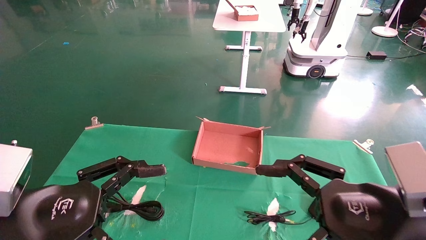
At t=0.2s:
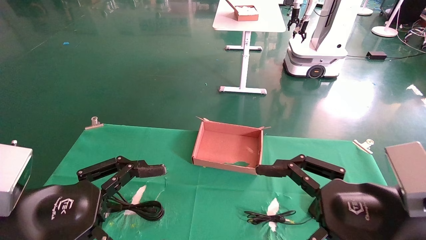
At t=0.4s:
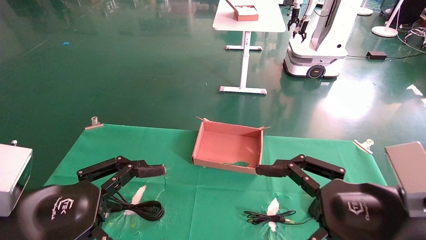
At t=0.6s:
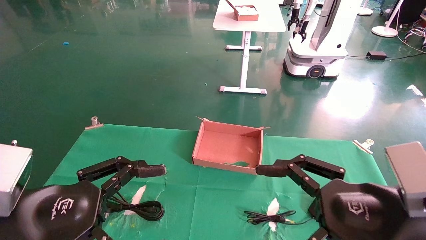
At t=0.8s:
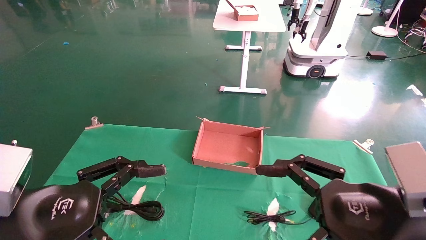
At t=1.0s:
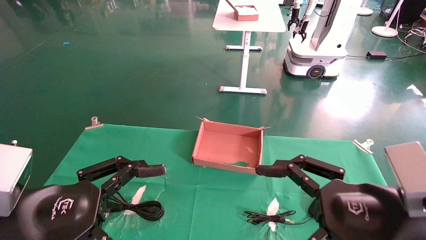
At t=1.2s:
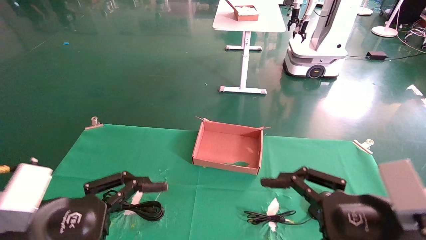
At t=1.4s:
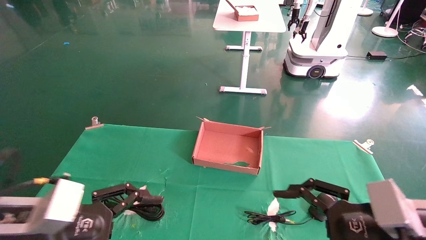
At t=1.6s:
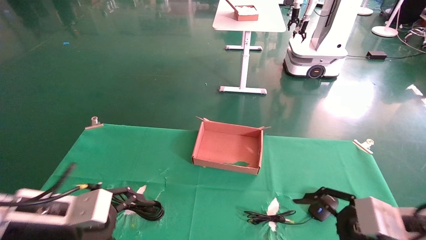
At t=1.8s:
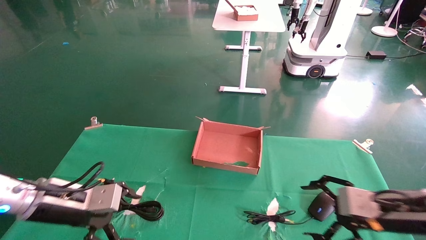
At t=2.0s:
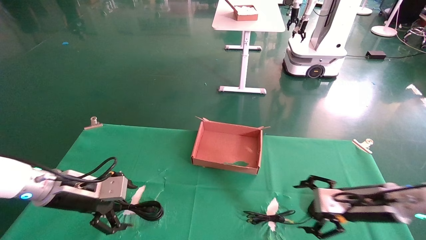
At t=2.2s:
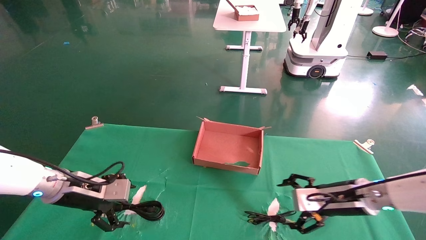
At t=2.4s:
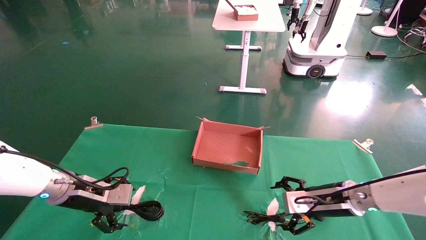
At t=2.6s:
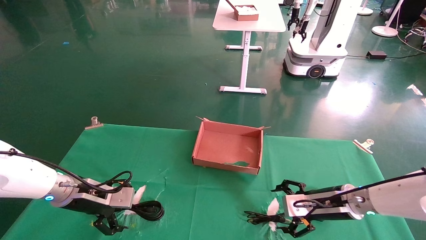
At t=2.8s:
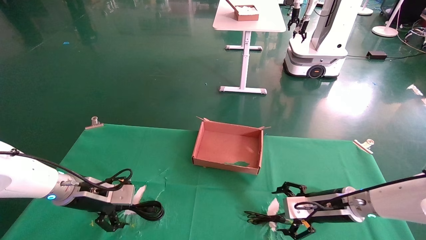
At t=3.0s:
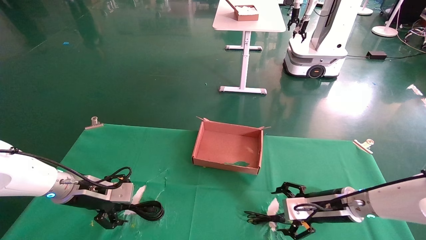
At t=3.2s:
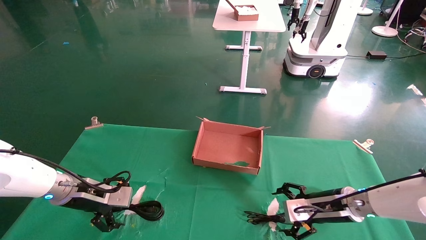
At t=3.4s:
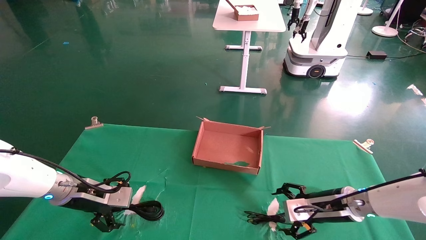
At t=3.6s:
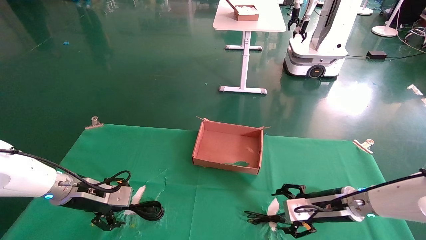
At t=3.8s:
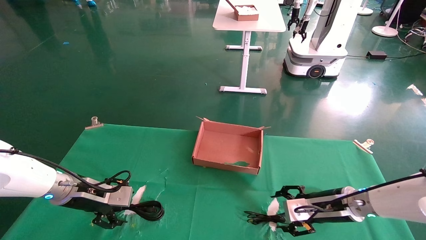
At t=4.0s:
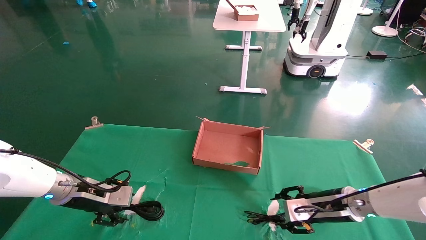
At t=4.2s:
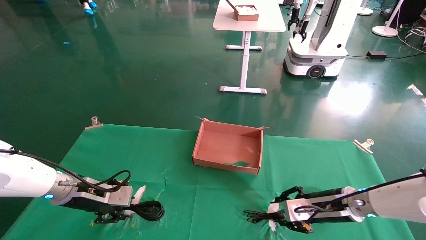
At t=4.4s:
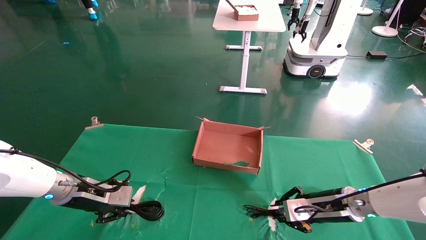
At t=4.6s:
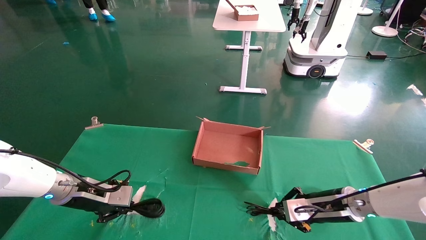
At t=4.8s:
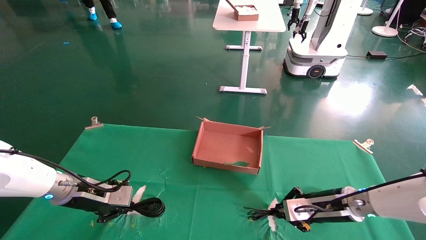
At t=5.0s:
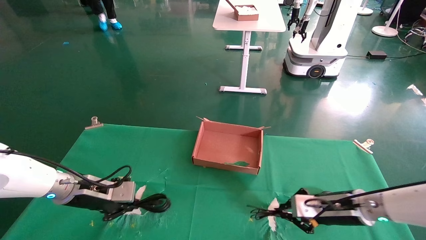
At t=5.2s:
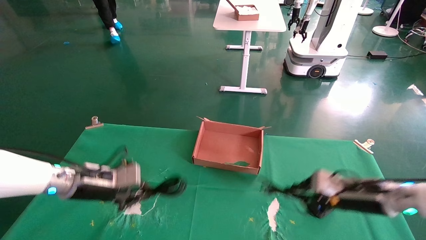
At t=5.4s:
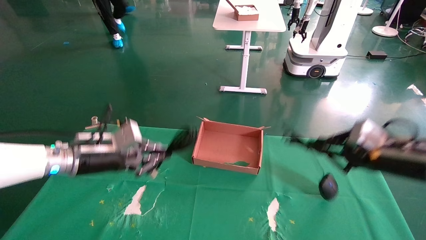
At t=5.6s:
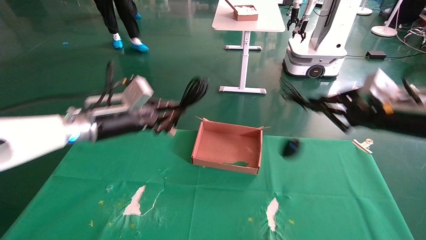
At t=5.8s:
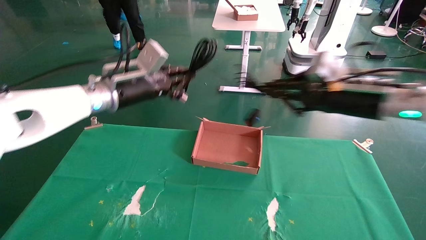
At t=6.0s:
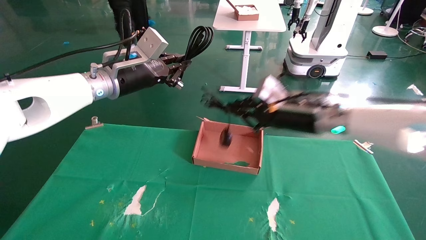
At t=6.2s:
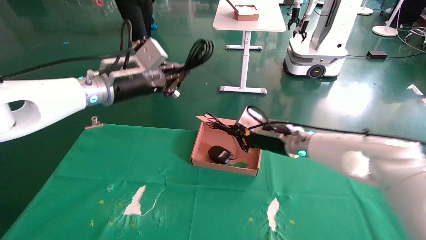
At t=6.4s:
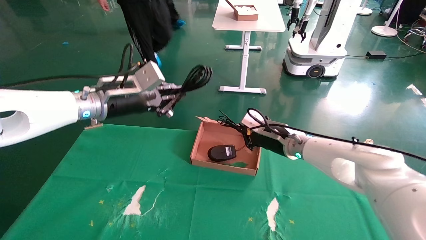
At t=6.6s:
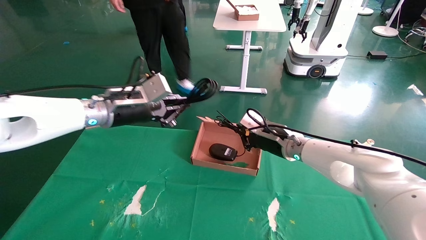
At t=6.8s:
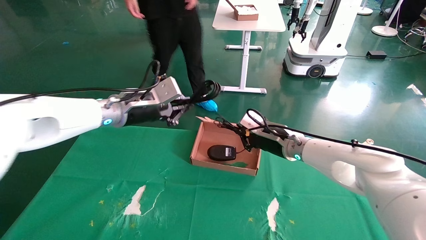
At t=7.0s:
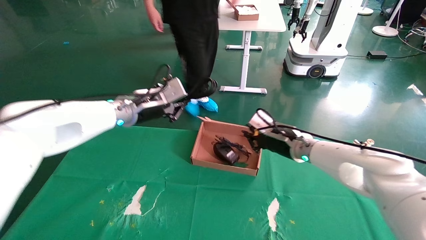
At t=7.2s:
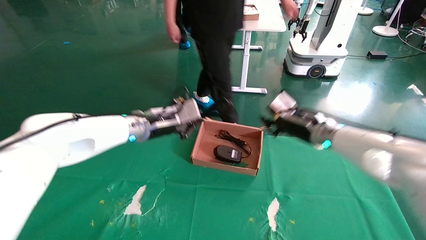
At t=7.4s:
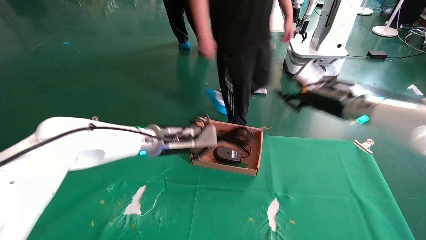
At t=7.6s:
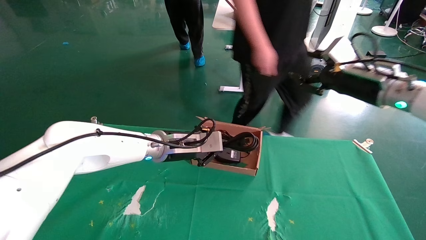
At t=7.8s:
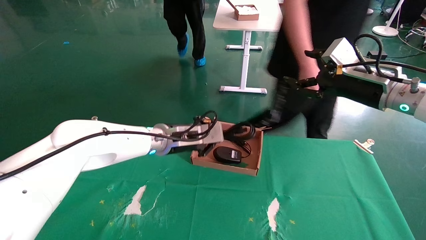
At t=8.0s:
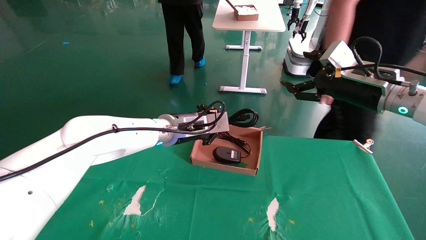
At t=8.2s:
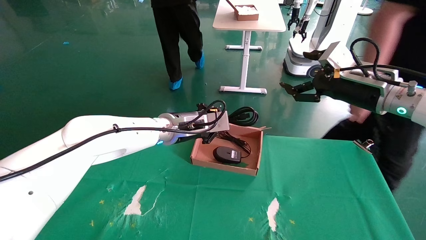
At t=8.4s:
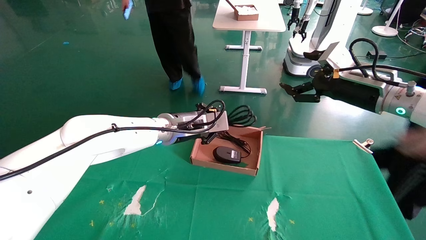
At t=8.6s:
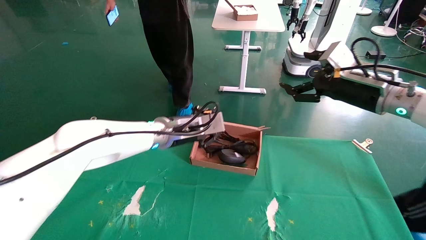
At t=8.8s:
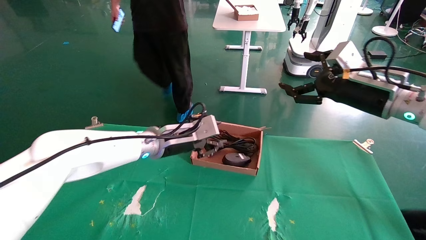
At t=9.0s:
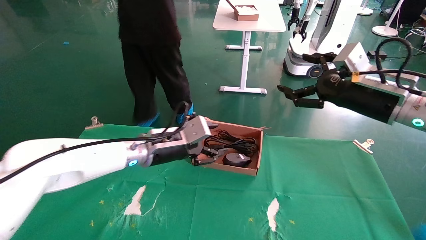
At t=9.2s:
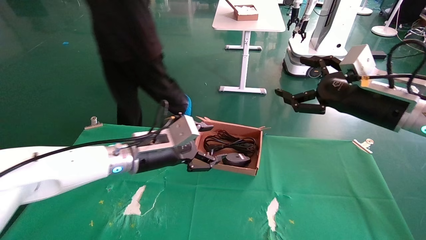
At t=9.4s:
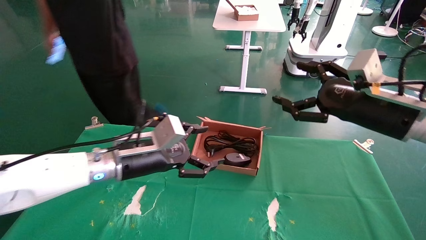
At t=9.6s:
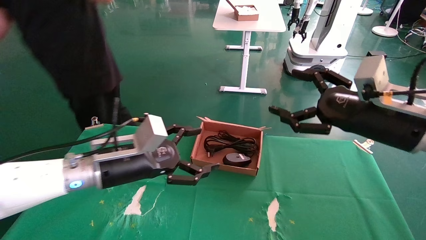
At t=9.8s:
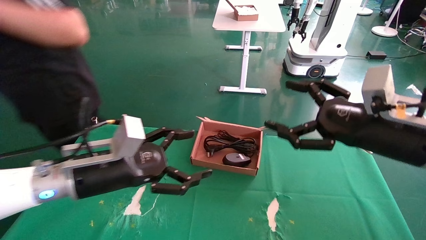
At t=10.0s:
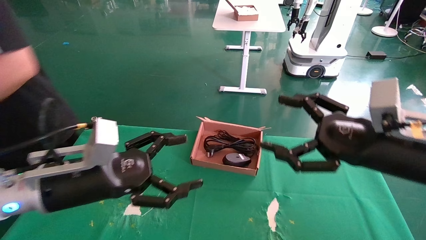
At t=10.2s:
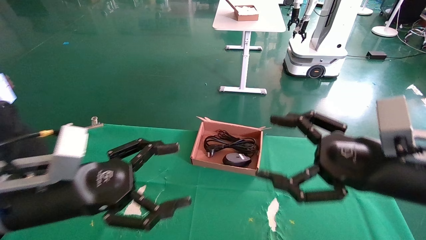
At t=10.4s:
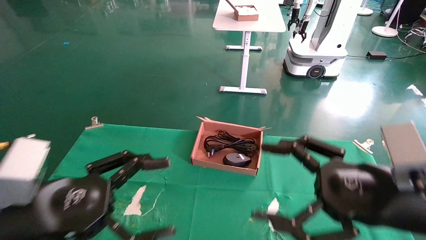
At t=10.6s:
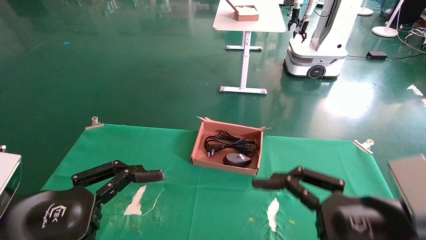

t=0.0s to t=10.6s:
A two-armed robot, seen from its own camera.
Step, t=1.2s to t=4.8s: Grab and lift both the mouse and power cord from the accessory packaging area at the same time.
Step, t=5.0s to t=8.6s: Place the mouse and power cord into the box.
t=0.0s to t=1.6s: The left gripper goes roughly 10 cm forward. The right gripper heads forward, to the right and downward, covering roughly 10 cm.
t=1.6s to t=3.0s: The left gripper is displaced forward by roughly 15 cm, while the right gripper travels forward and downward by some 15 cm.
t=3.0s to t=4.6s: The right gripper closes its fingers. Meanwhile the left gripper closes its fingers.
t=4.6s to t=6.0s: The right gripper shifts about 15 cm upward. The left gripper shifts approximately 25 cm upward and to the right.
t=6.0s to t=7.6s: The right gripper moves to the right and upward, about 10 cm, and opens. Meanwhile the left gripper heads downward and to the right, covering roughly 15 cm.
t=7.6s to t=9.0s: The left gripper opens its fingers. The right gripper heads backward, covering about 5 cm, and opens.
t=9.0s to t=10.6s: The left gripper moves backward and to the left, some 25 cm, and opens. The right gripper travels backward and downward by about 20 cm.

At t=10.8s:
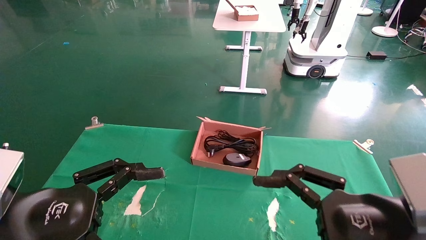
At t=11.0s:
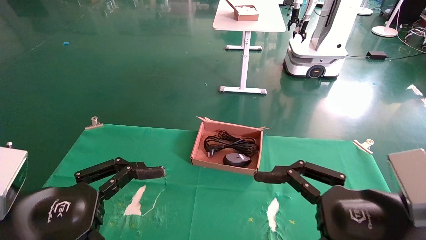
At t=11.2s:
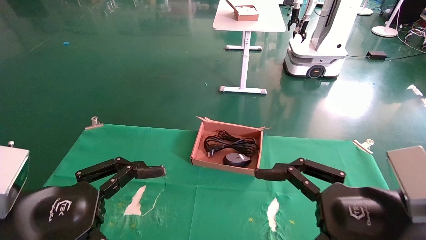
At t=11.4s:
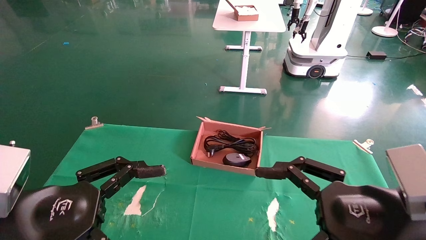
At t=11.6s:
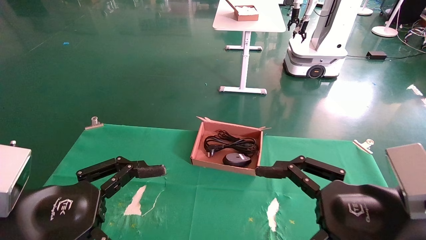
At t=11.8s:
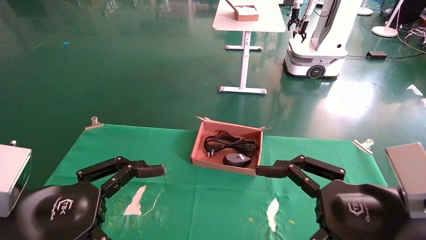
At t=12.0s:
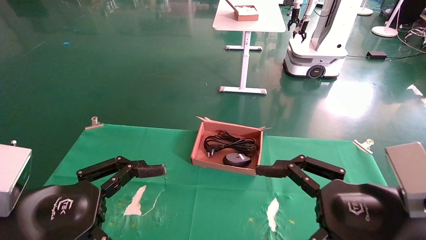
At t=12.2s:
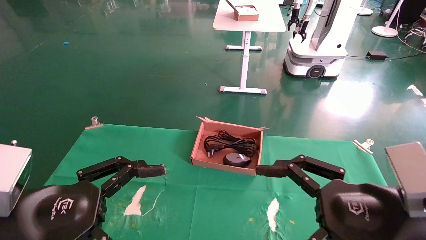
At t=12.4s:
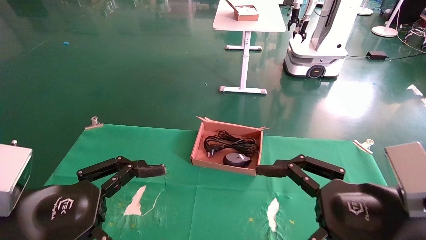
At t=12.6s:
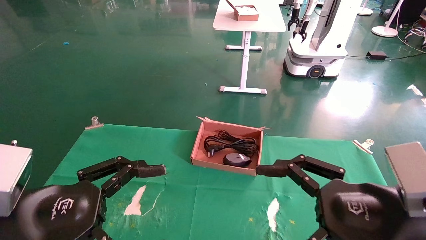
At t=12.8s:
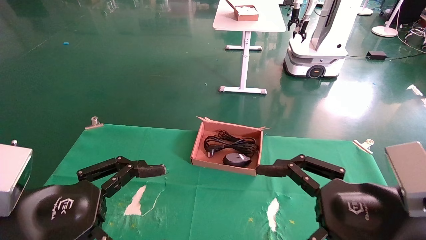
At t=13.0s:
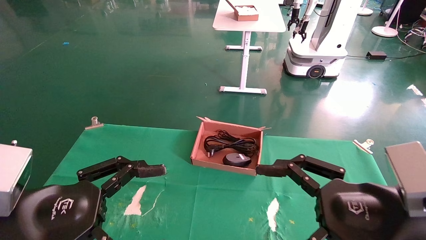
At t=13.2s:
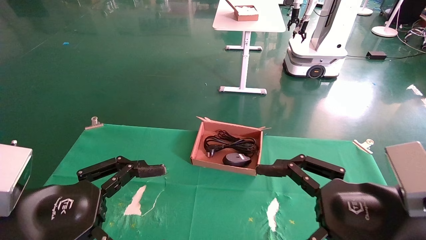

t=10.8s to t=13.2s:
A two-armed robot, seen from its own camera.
t=10.8s to t=13.2s: The two grippers keep their place.
